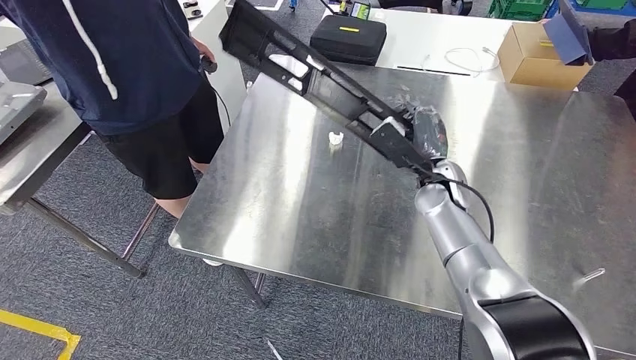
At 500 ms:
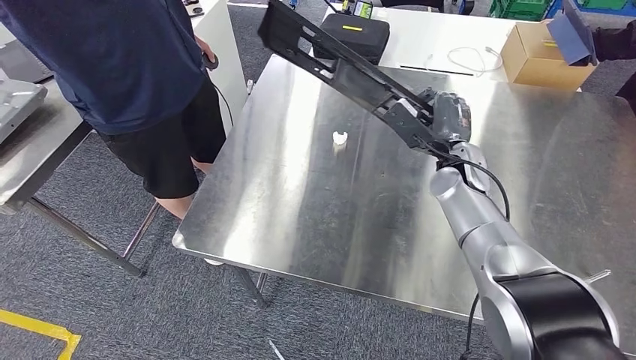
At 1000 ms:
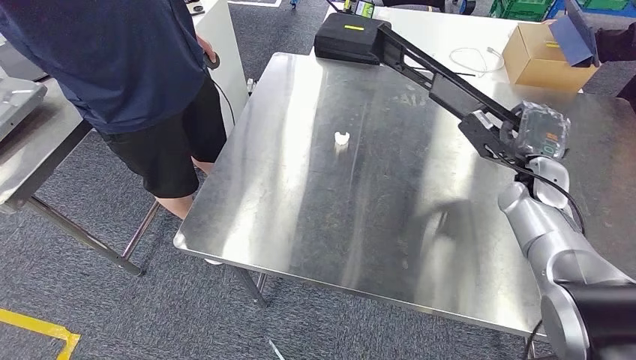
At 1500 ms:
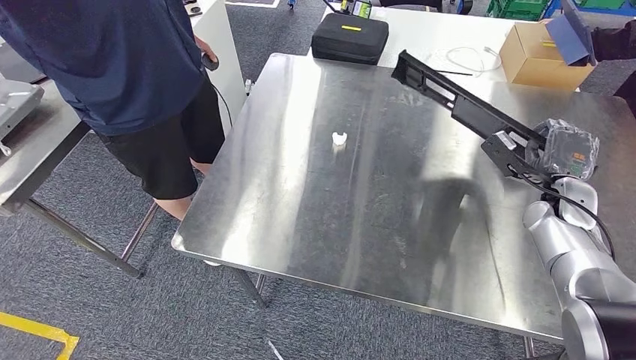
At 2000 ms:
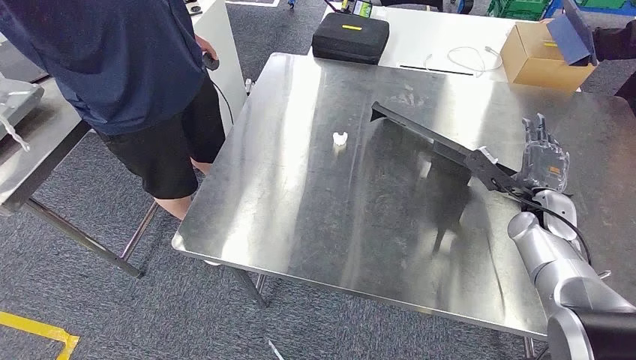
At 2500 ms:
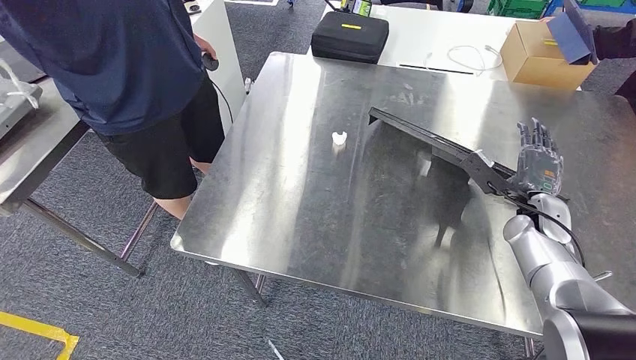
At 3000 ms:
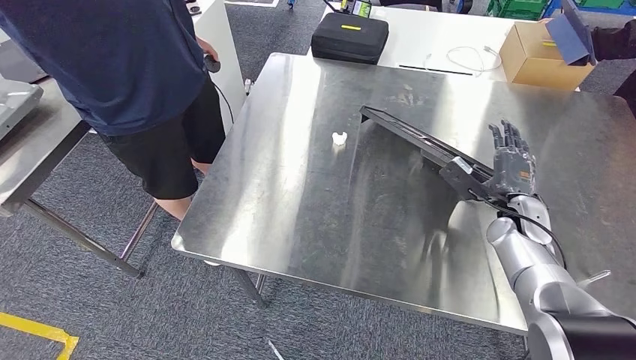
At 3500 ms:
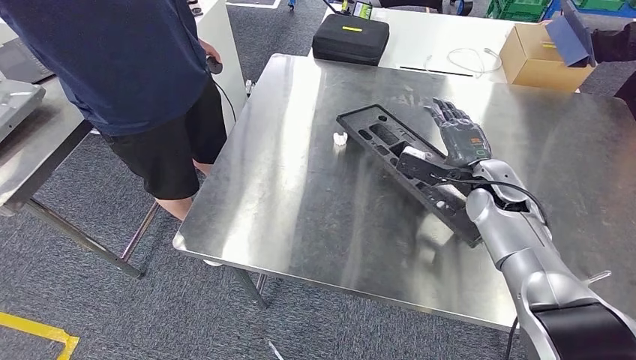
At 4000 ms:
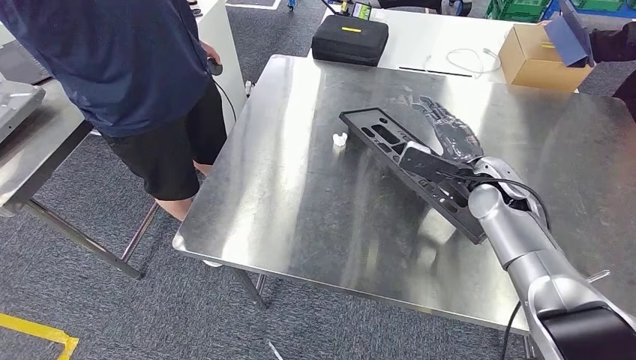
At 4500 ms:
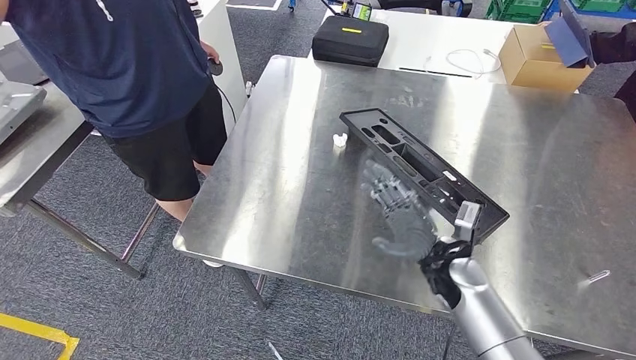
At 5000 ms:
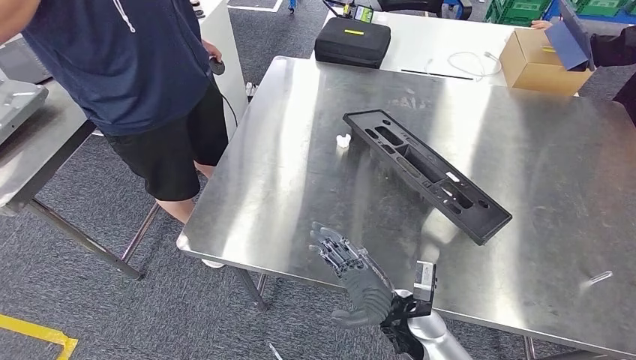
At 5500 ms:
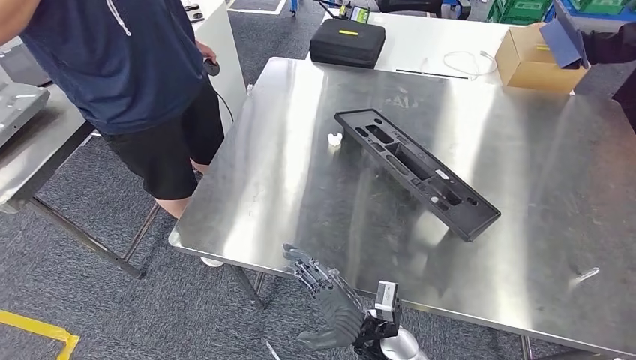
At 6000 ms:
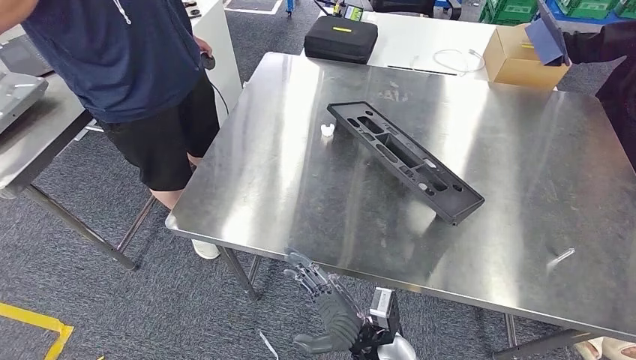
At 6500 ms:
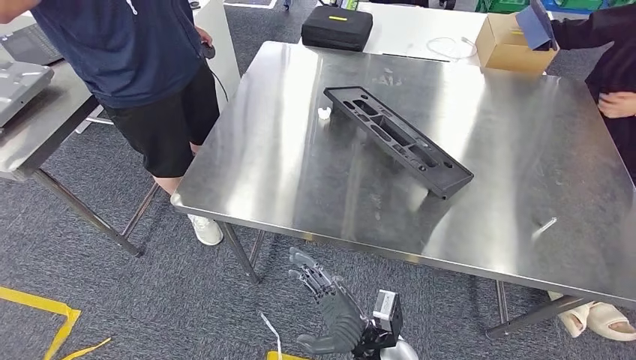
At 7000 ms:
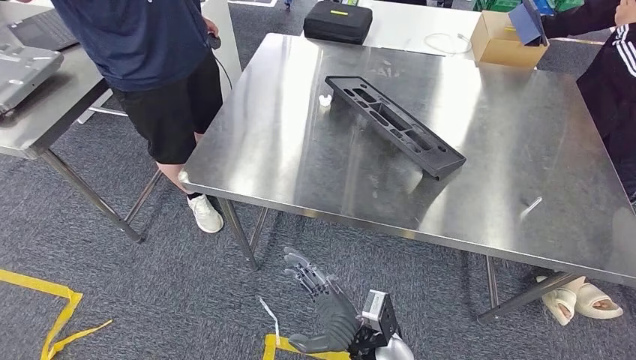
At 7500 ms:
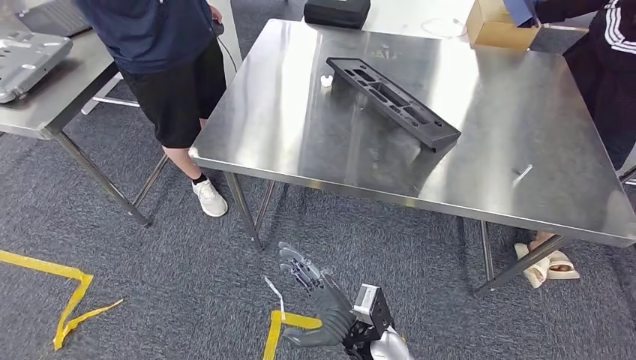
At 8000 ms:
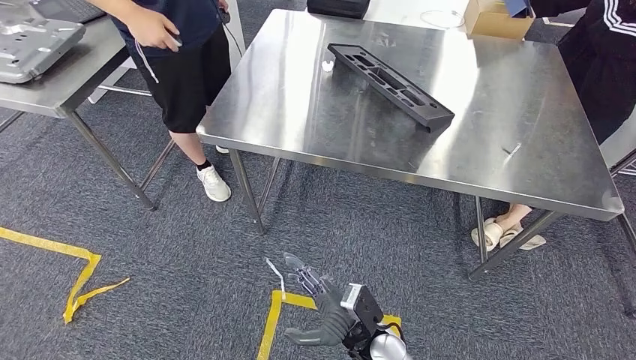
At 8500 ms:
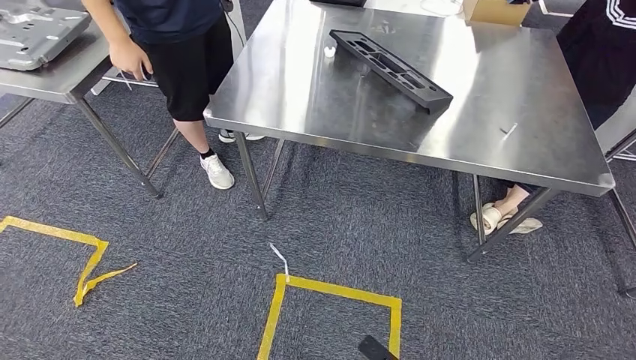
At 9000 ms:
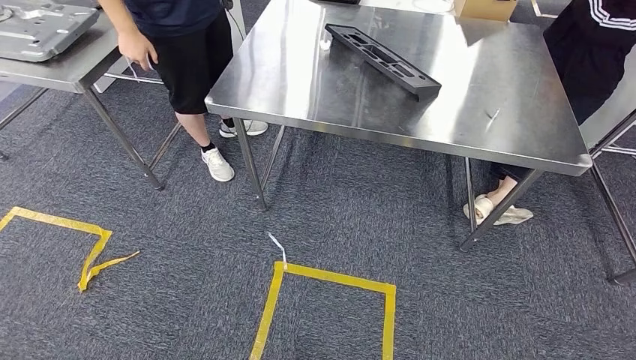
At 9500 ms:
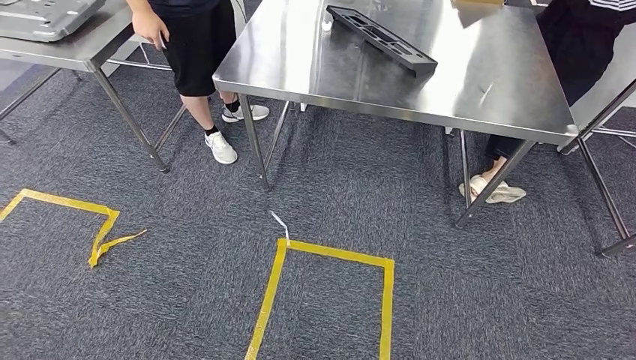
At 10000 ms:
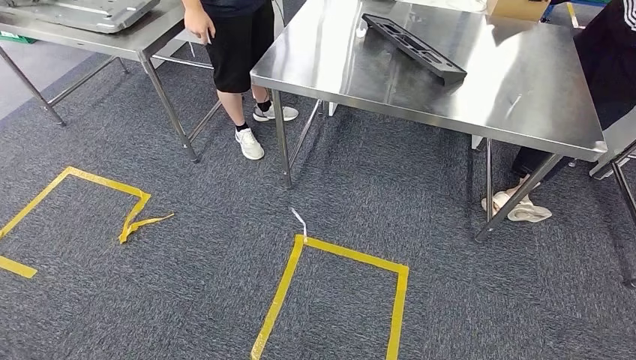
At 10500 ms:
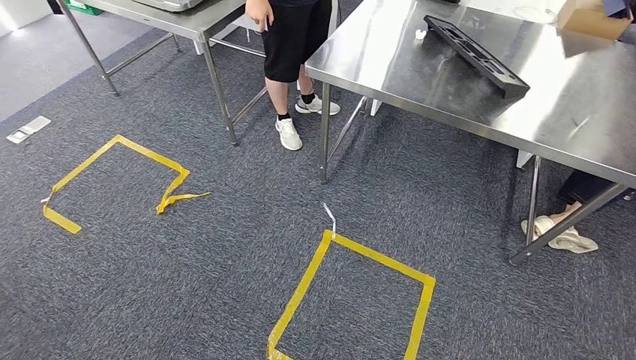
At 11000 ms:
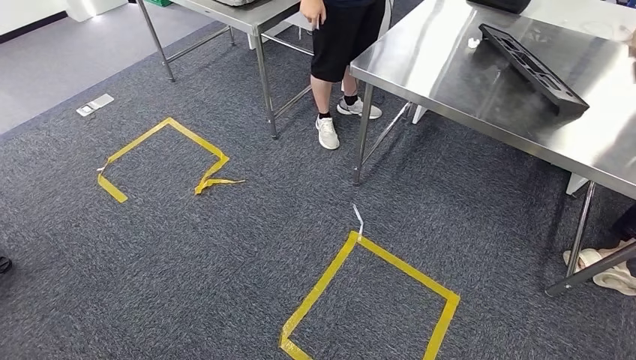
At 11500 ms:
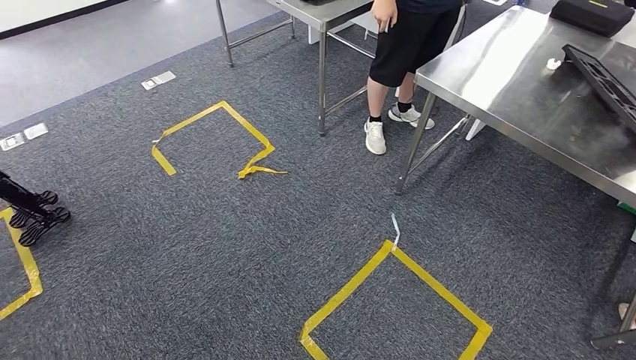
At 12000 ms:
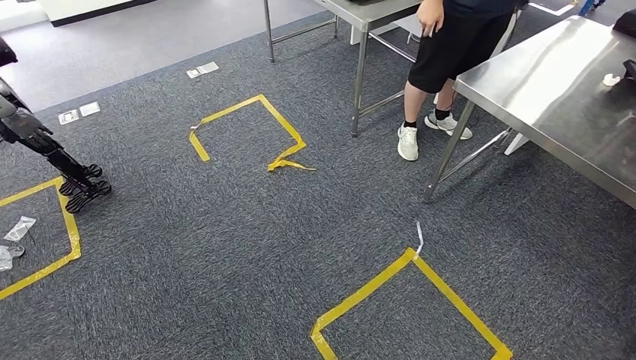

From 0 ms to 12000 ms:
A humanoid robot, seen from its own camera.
Step, from 0 ms to 5500 ms: Insert the large material into the corresponding slot on the workbench.
From 2000 ms to 4000 ms: The right hand heads to the left, covering roughly 10 cm.

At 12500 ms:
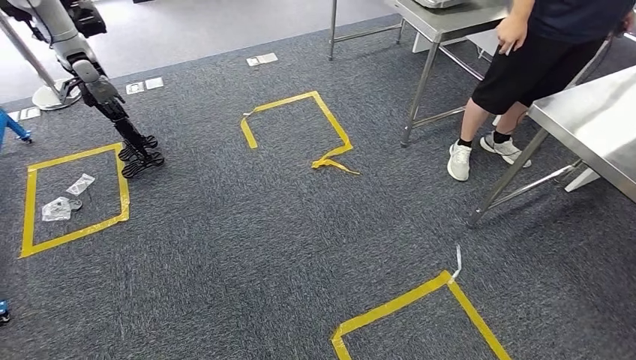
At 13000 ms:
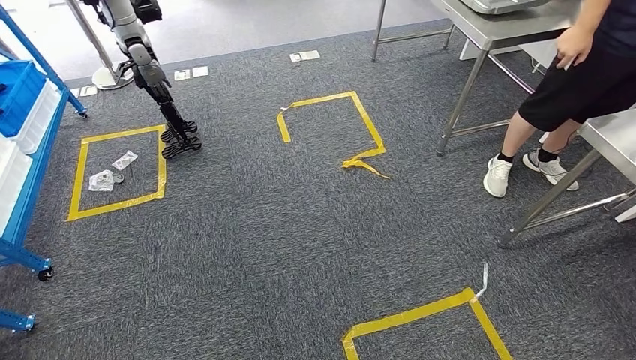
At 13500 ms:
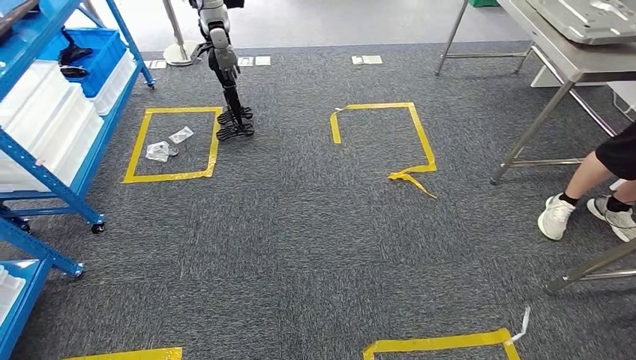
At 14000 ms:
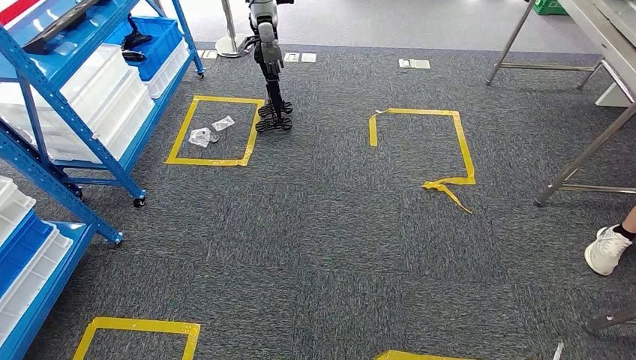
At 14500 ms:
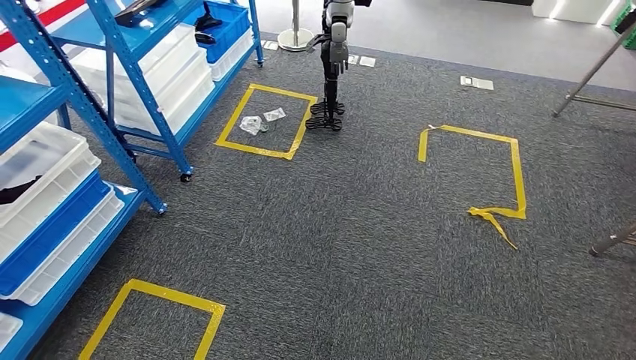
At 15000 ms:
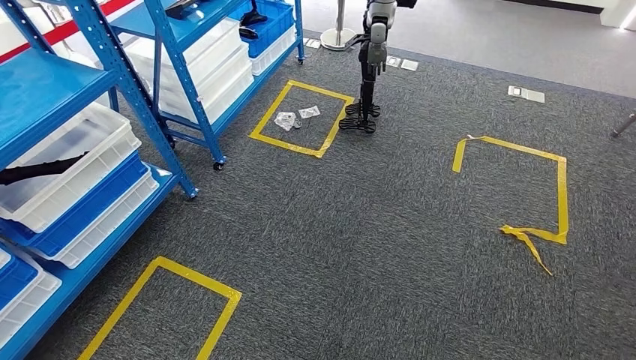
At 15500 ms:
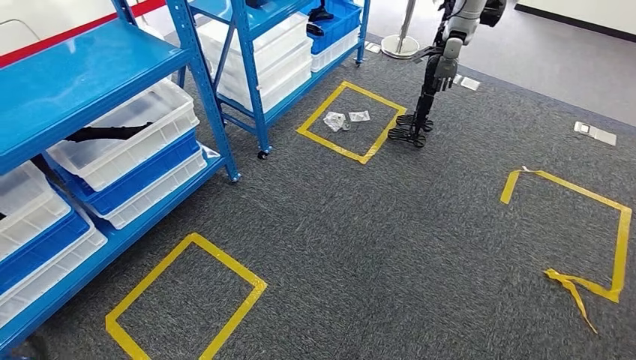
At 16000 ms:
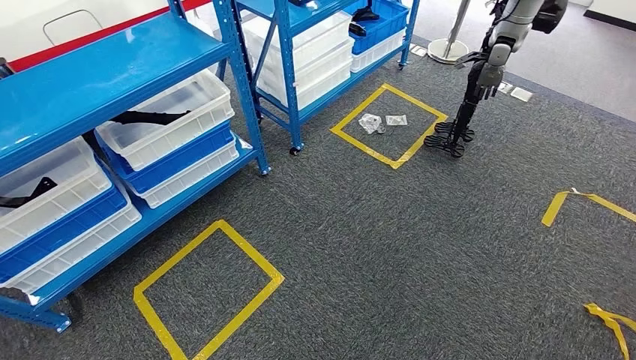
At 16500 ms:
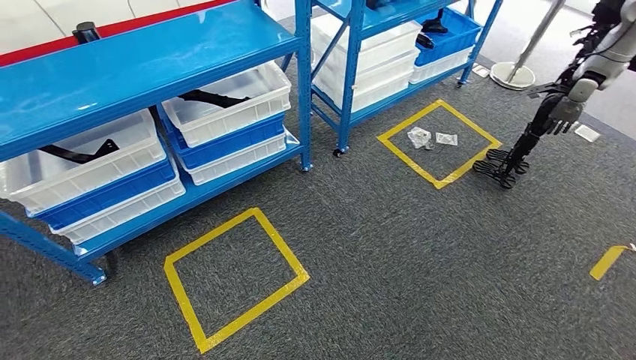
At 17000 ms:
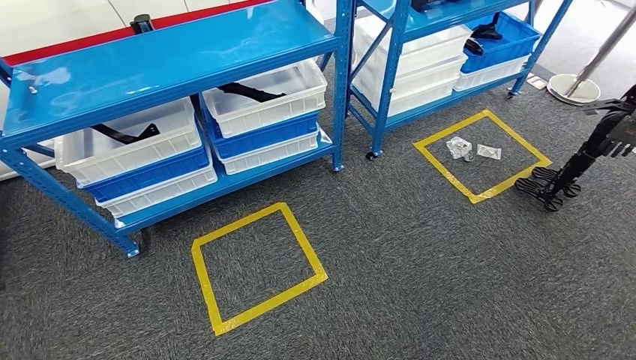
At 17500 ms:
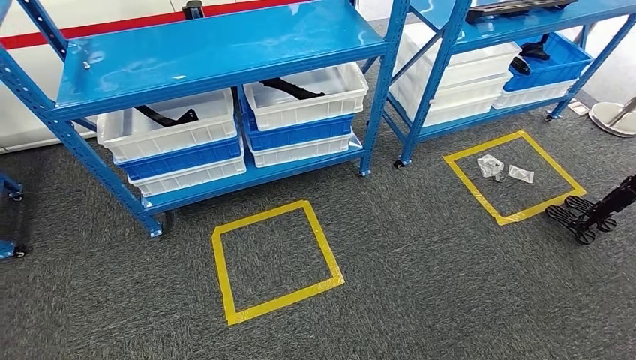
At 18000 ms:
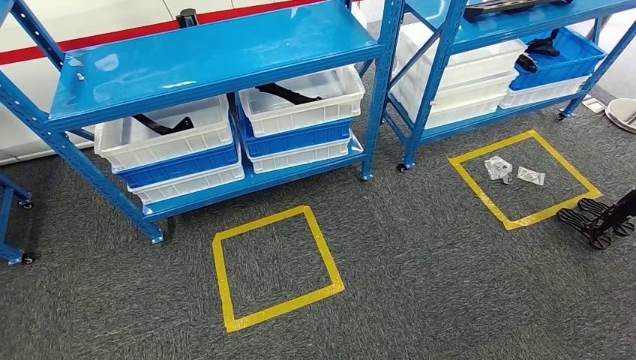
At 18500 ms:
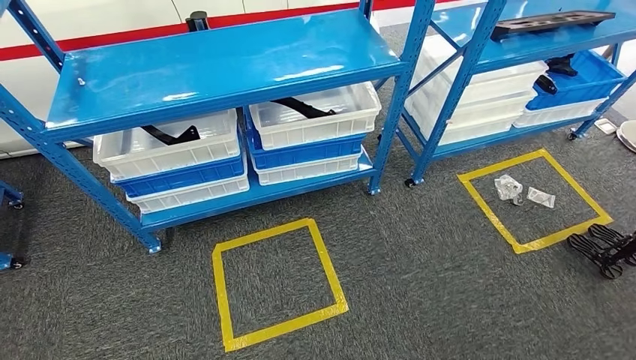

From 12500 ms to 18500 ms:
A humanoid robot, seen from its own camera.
Step, from 12500 ms to 18500 ms: Move to the initial position of the shelf.

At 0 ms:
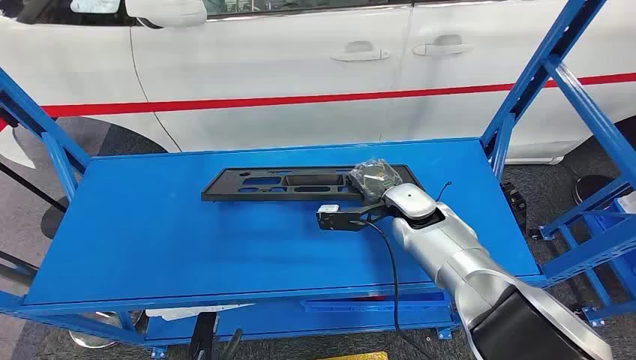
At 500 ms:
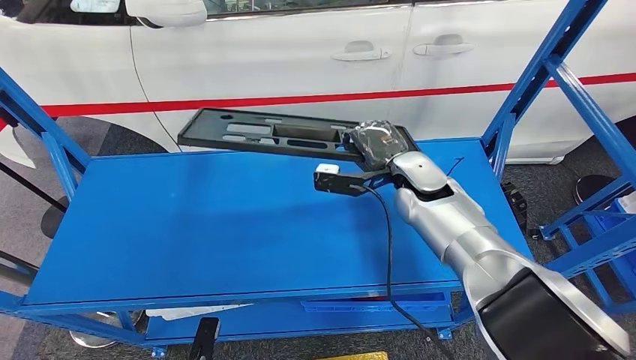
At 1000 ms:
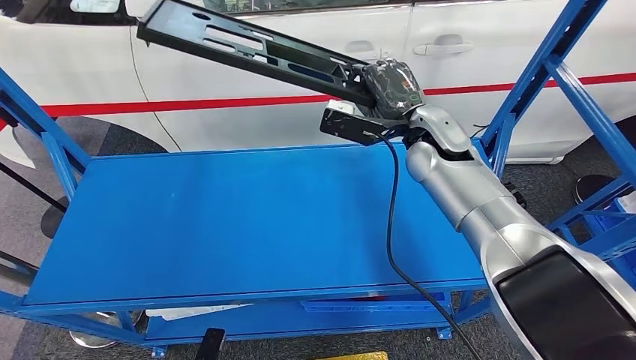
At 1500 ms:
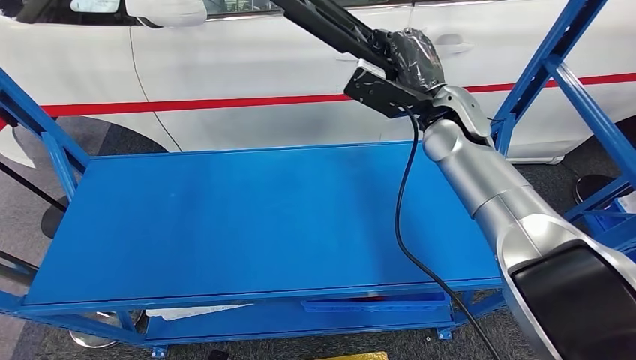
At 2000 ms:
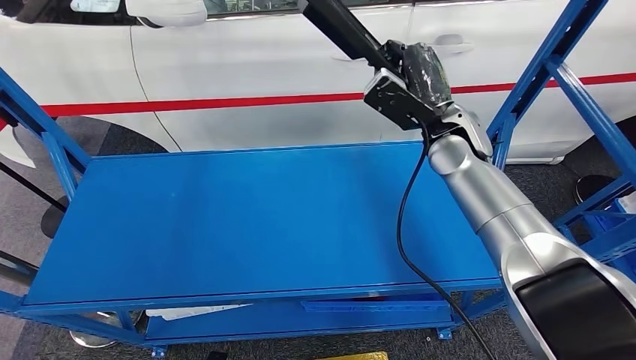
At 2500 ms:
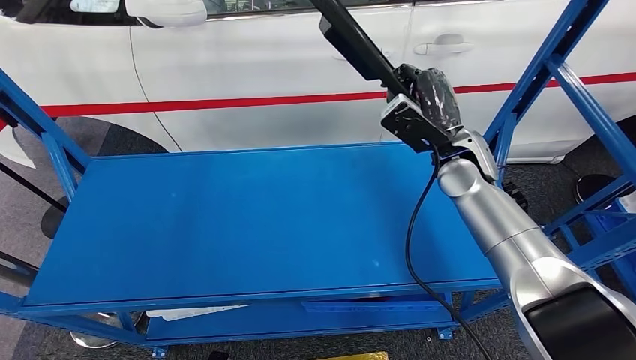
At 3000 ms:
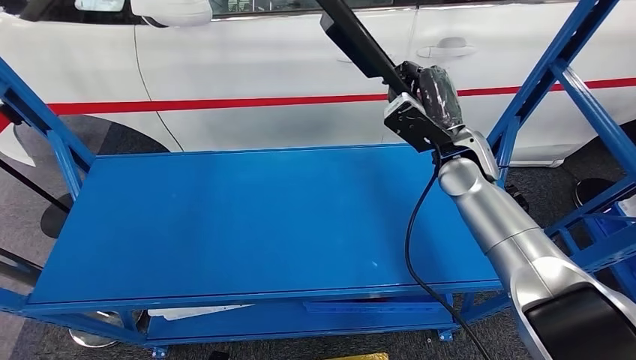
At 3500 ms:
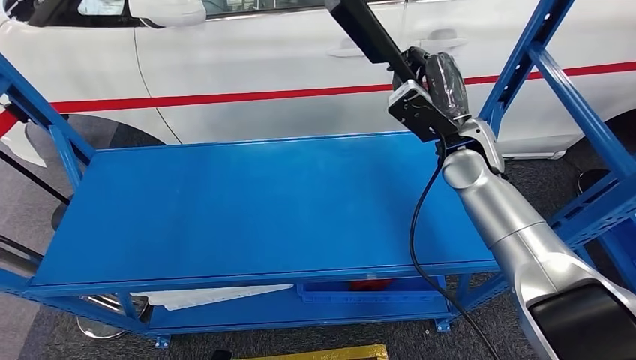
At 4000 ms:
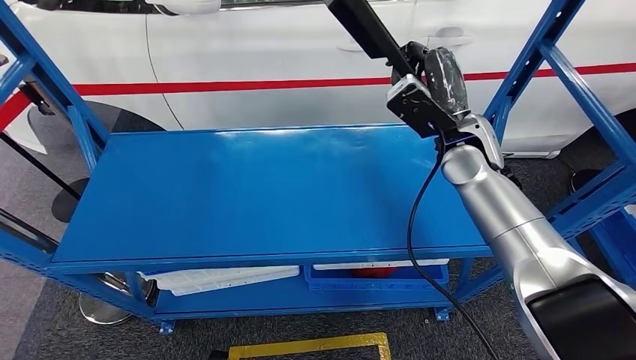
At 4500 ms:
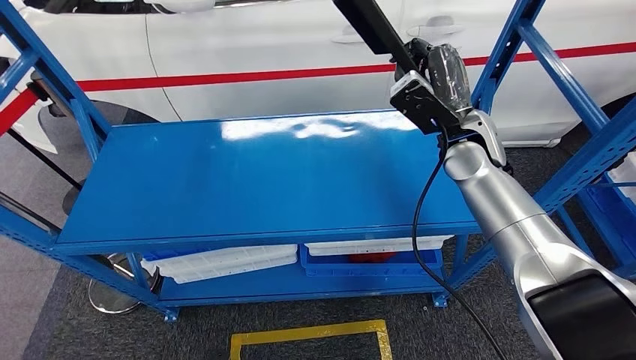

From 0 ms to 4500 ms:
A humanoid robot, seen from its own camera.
Step, from 0 ms to 2000 ms: Pick up the large material from the shelf.
